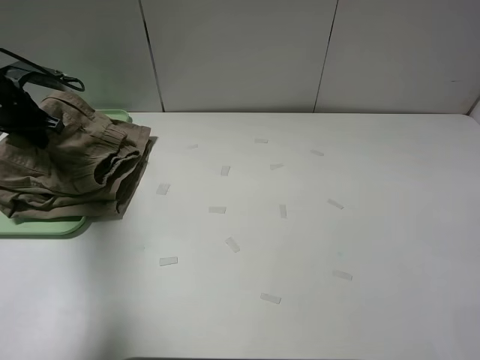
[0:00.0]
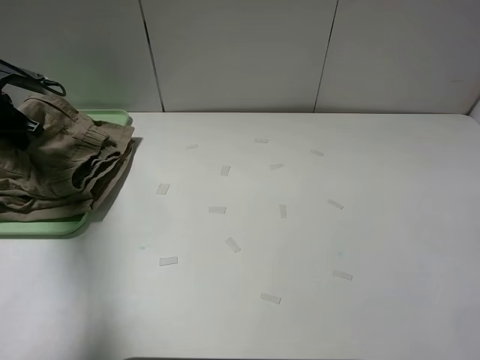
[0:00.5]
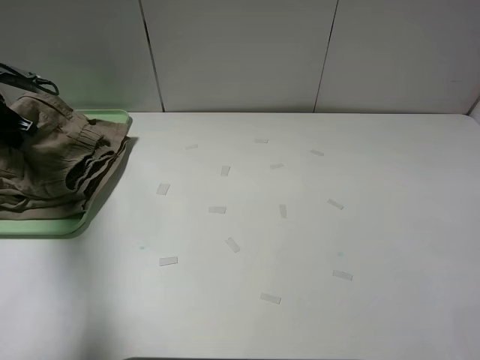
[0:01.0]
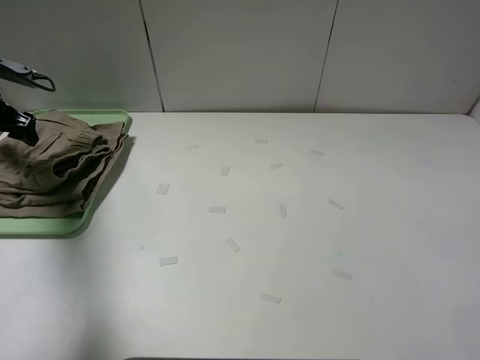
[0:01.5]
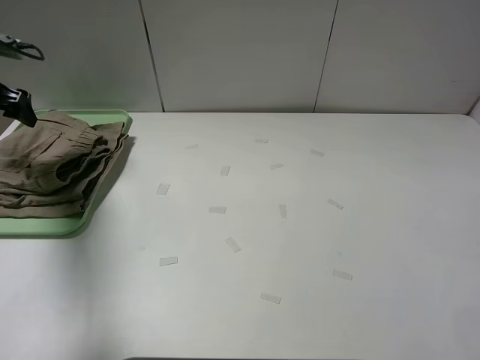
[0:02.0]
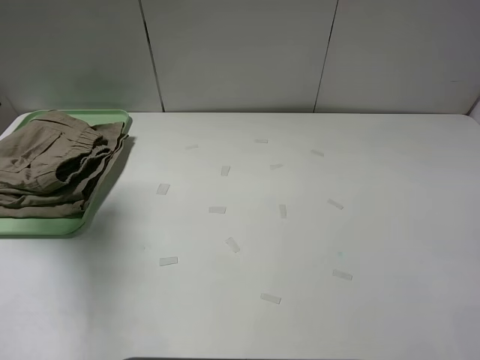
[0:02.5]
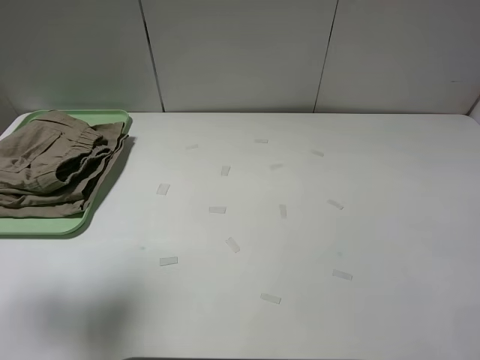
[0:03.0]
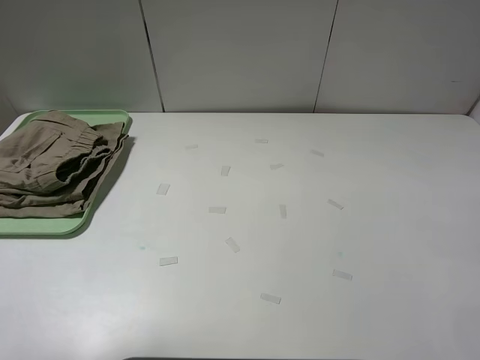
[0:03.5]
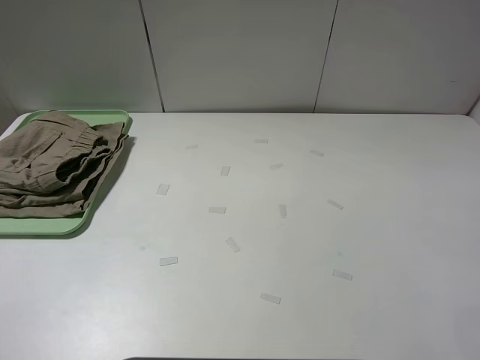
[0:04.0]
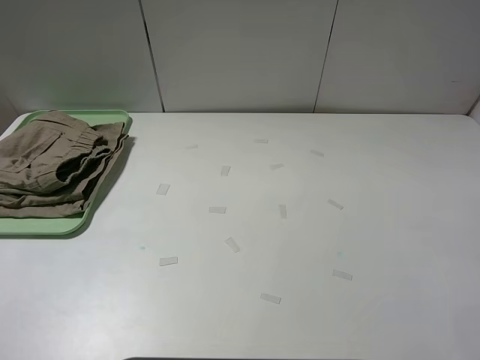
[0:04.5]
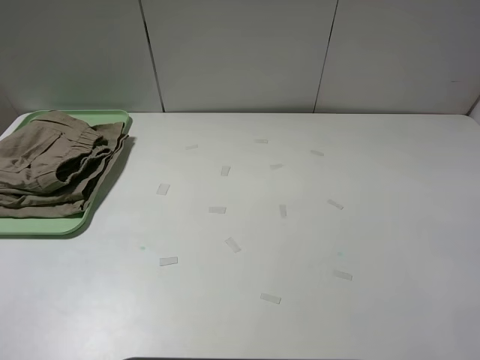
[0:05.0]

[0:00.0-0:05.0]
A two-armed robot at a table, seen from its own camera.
Task of the whole recording: fold the khaki jeans in half with two grippers, then fold them in half again, and use the left claw to place the folded fold khaki jeans on the tray.
Step, 0:00.0 to 0:02.0: Place the folded khaki trousers on the green tray with the left gripper.
0:00.0 to 0:02.5: The left gripper moves upward and backward, approximately 15 cm, and opens up.
0:02.5 to 0:05.0: The left gripper moves backward, some 35 cm.

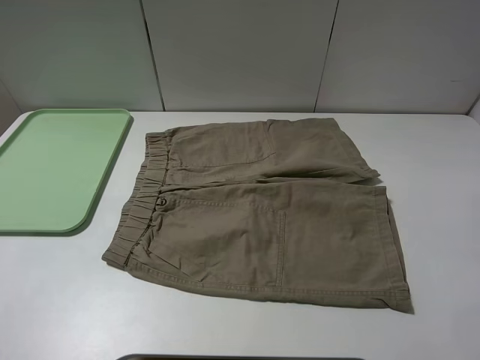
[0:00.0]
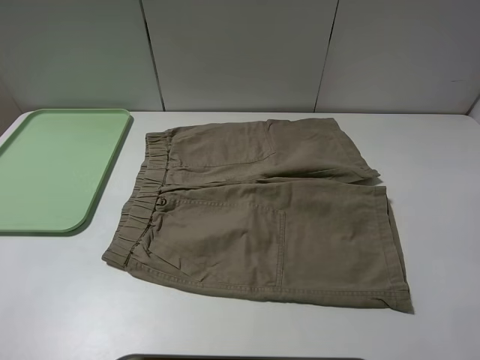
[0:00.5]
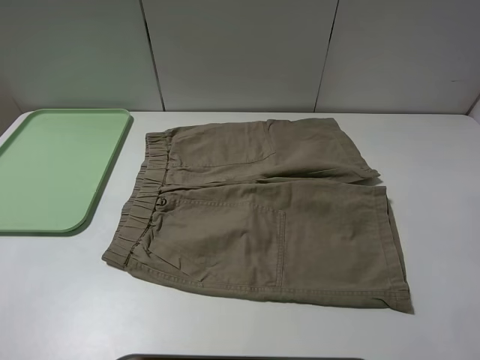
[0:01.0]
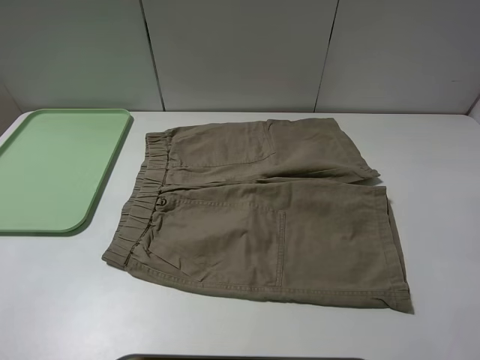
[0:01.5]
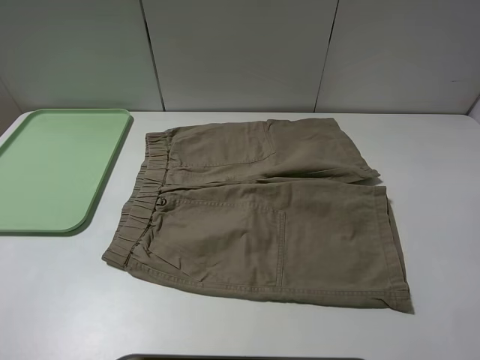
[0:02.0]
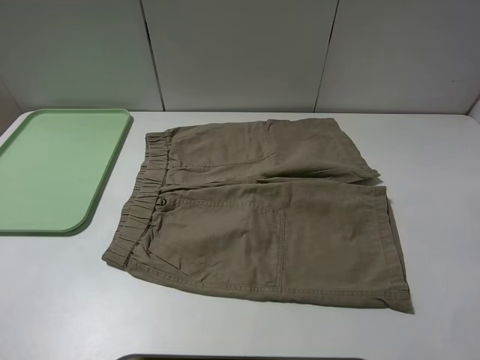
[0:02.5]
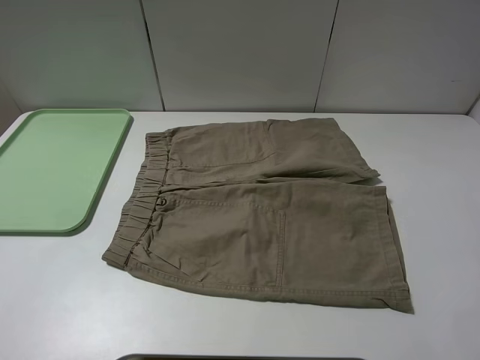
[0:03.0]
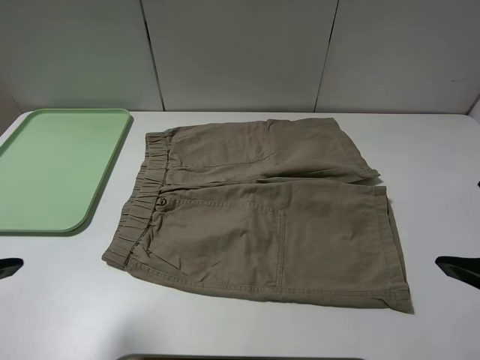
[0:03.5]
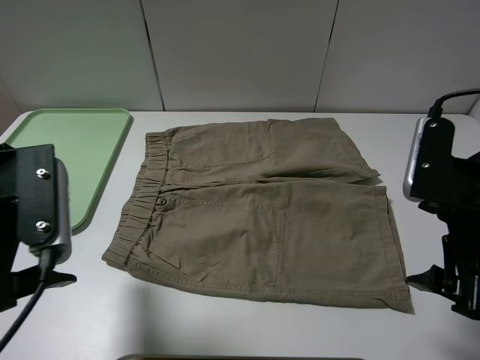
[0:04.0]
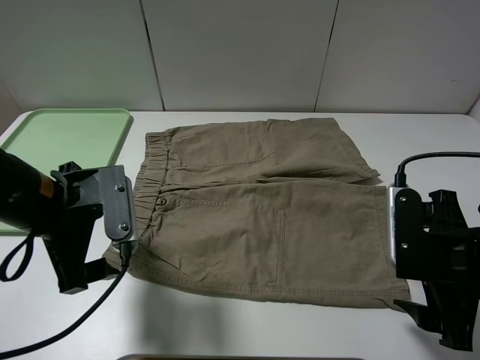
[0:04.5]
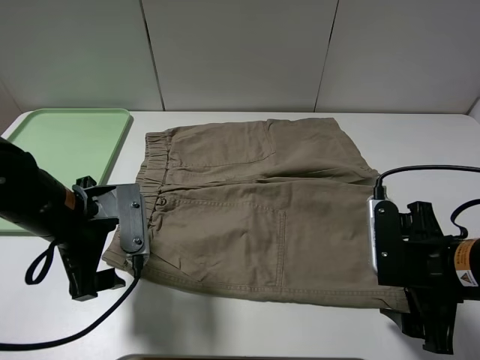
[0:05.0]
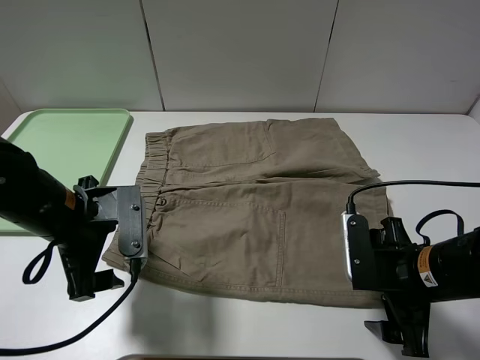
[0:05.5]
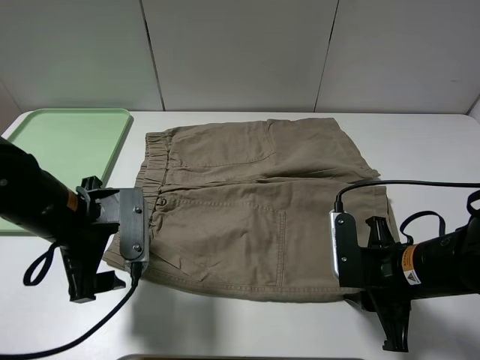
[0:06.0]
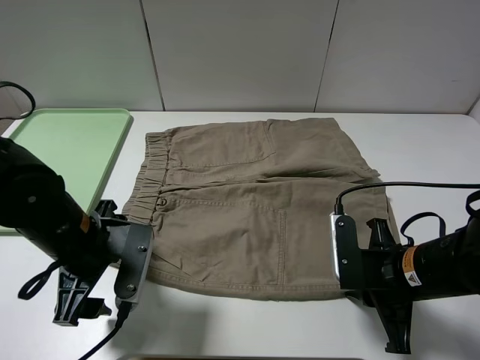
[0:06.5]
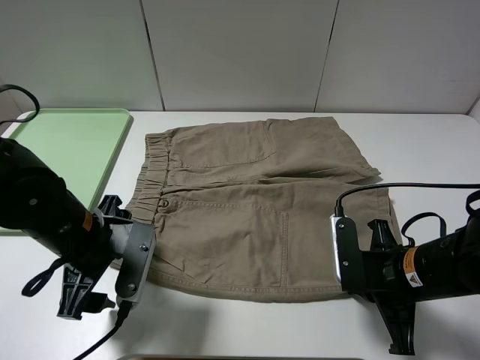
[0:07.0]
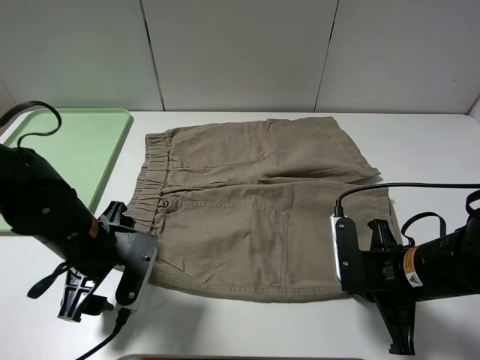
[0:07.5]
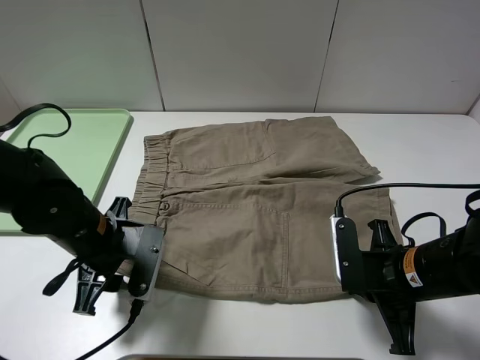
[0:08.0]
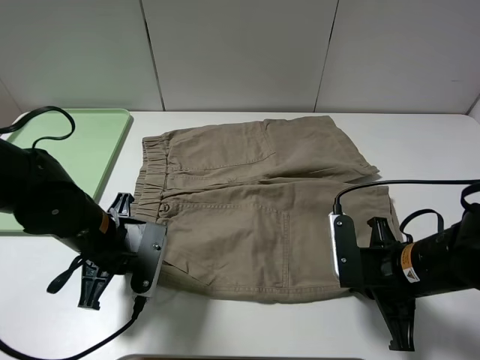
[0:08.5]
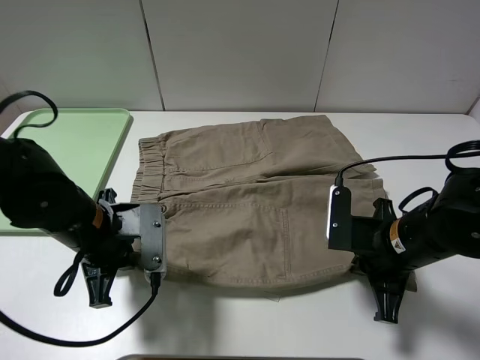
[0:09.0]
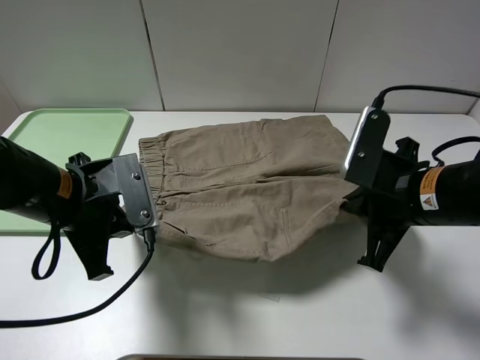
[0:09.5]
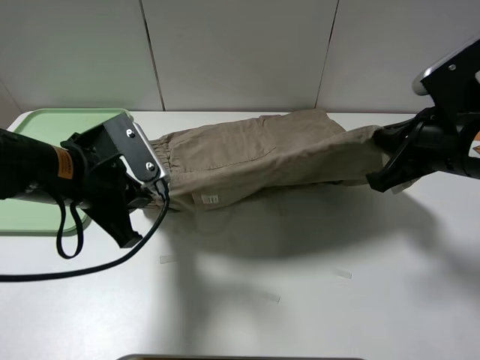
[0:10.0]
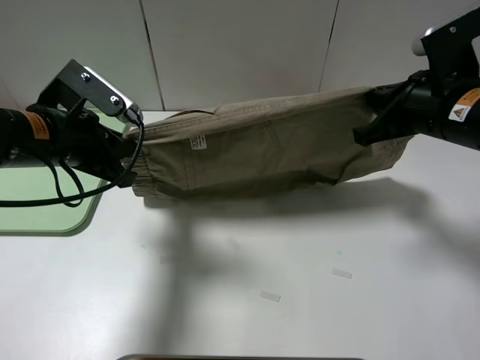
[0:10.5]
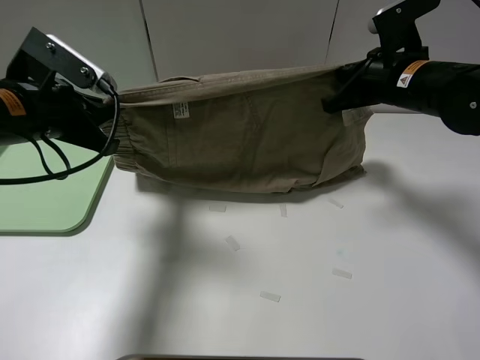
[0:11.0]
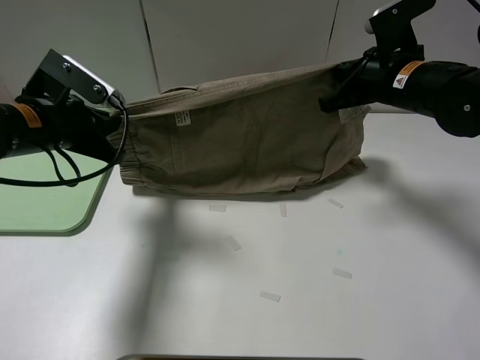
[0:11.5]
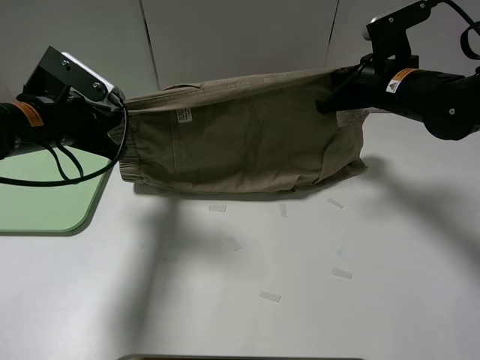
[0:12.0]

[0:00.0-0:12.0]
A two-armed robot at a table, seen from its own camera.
Task of the whole recording: fold the khaki jeans in half with two grippers, then fold them in half again, and use the left claw to place the folded fold khaki jeans on the tray.
Step, 0:00.0 to 0:06.5: Grasp the khaki trousers with the right gripper.
Step, 0:07.0 to 0:08.5: Grasp the khaki trousers with the left gripper.
0:02.0 to 0:04.0: The right gripper shifts approximately 15 cm forward, to the left and downward, while the left gripper shifts approximately 20 cm forward and to the right.
0:04.0 to 0:06.0: The two grippers go some 10 cm downward. The right gripper closes its fingers.
0:06.0 to 0:08.0: The right gripper closes its fingers. The left gripper closes its fingers.
0:08.0 to 0:10.0: The left gripper is displaced upward by some 10 cm, and closes up. Meanwhile the right gripper travels upward and forward by approximately 15 cm.
0:10.0 to 0:12.0: The right gripper heads forward, covering approximately 15 cm, while the left gripper shifts roughly 10 cm forward and to the left.

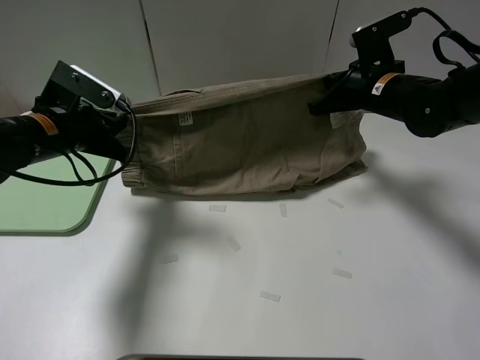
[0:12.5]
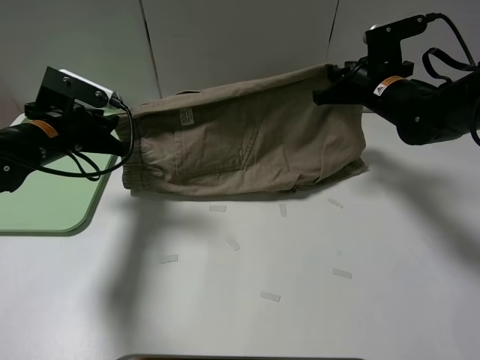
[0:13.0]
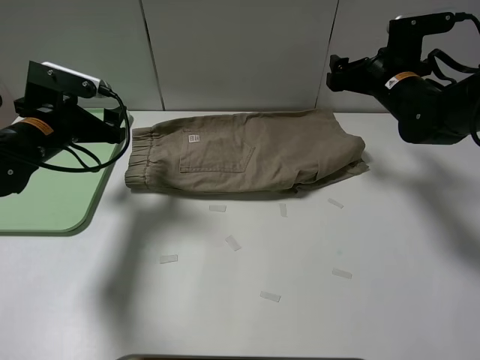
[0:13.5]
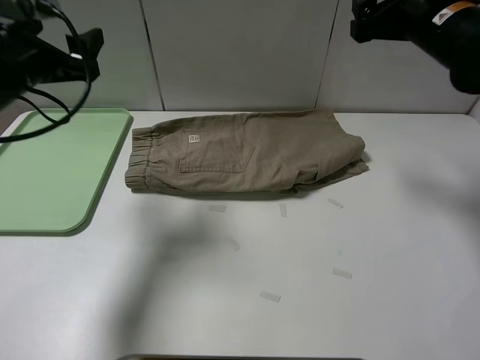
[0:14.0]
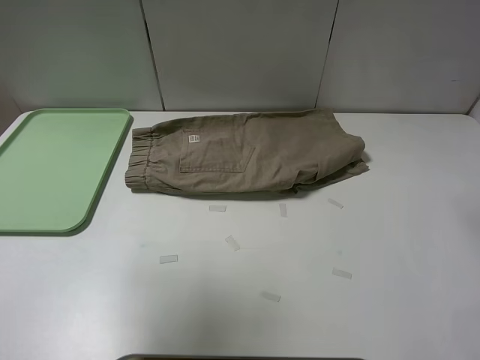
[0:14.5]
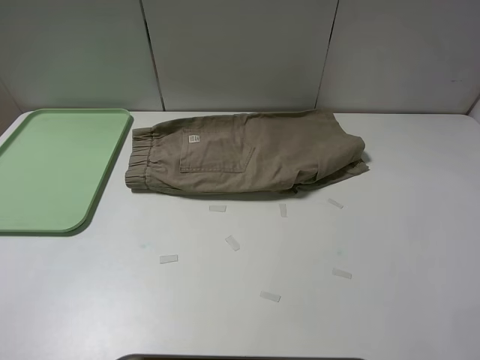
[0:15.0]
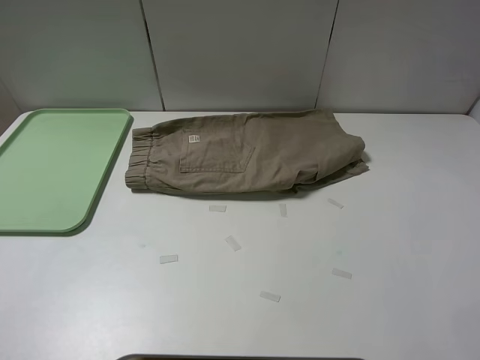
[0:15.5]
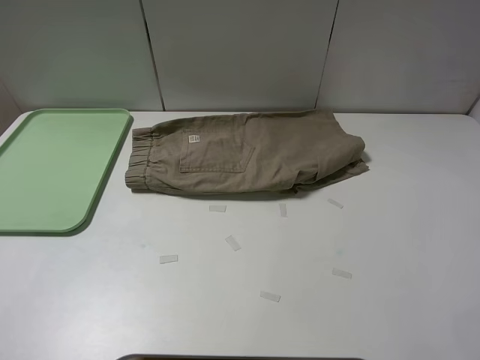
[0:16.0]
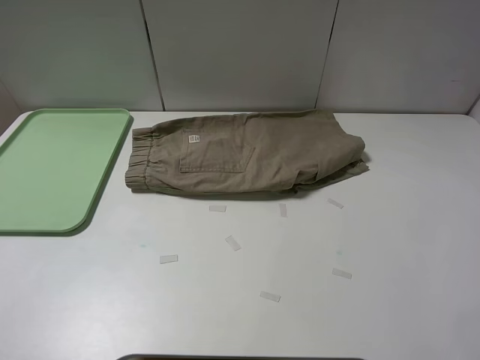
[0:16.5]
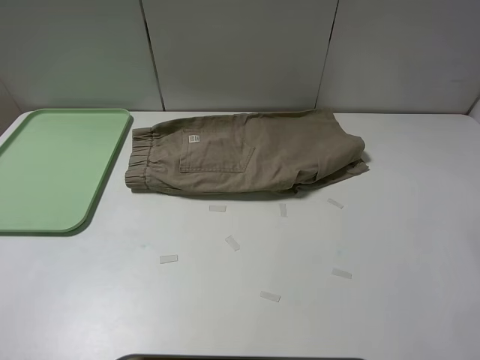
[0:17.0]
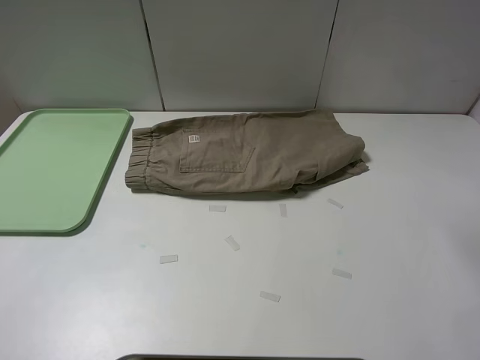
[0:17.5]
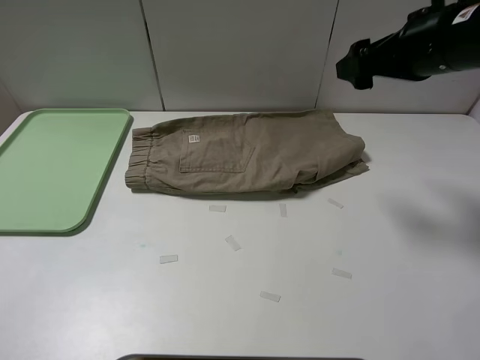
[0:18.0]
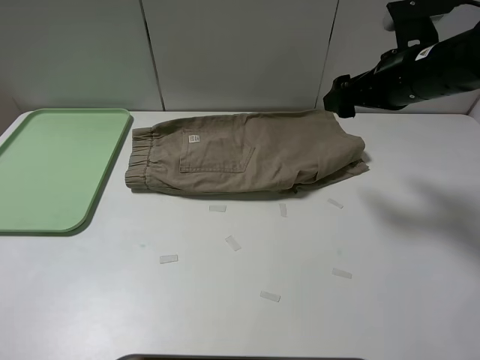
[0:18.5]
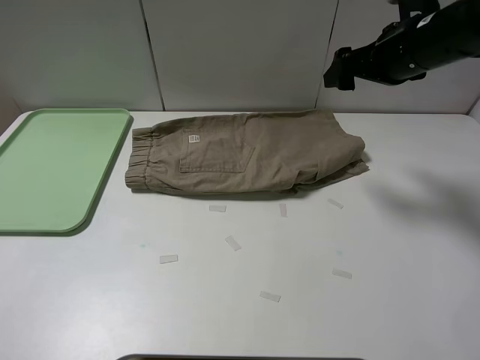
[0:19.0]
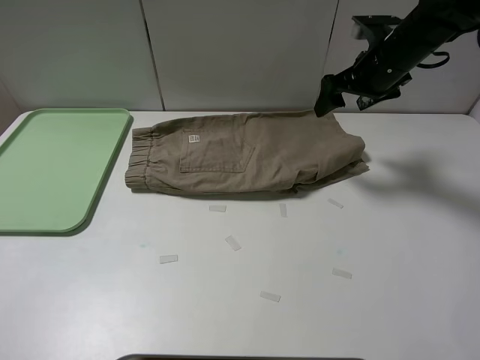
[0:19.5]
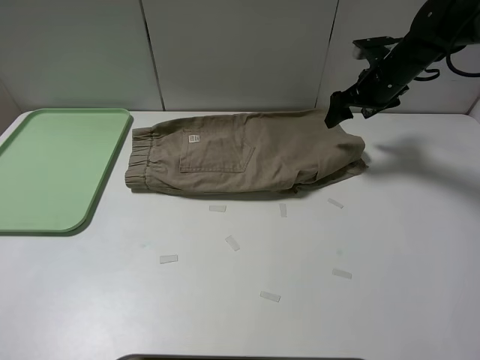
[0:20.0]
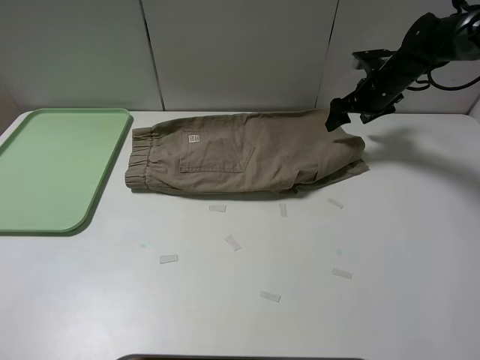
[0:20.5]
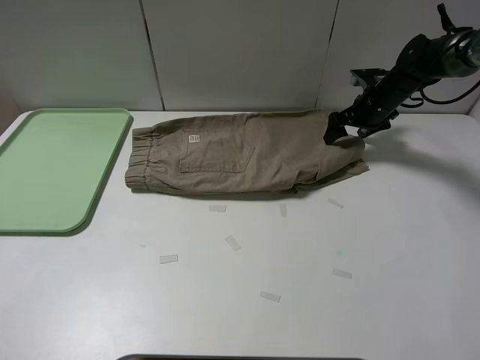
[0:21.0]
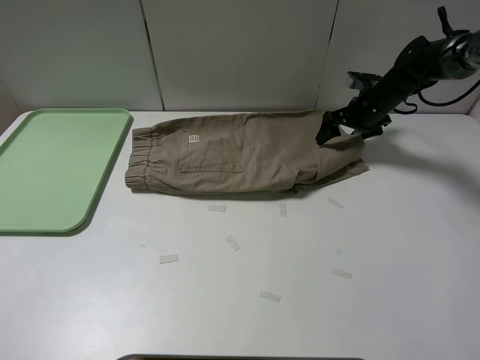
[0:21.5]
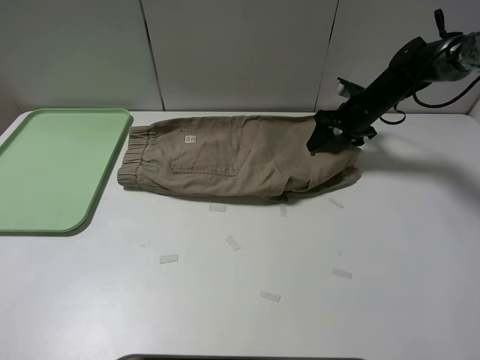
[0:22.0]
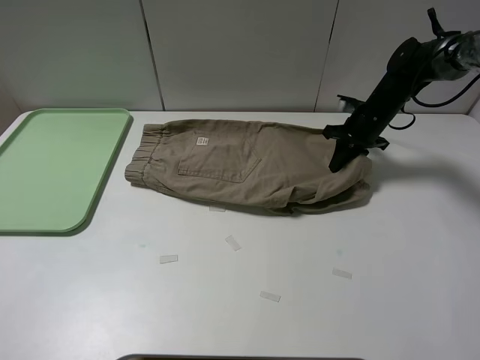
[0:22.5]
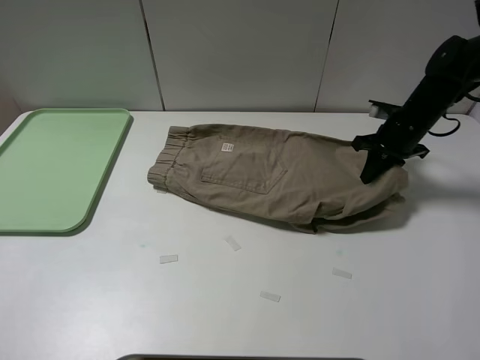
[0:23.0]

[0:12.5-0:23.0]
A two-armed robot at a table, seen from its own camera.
Task of the whole recording: fold the khaki jeans in half with two grippers, then fold them in half again, and use the left claw to place the folded fold khaki jeans on the tray.
Step, 0:13.5 to 0:22.0: Grasp the khaki trousers with the right gripper.
0:12.5 to 0:14.5: Both grippers move upward and backward, approximately 25 cm. The left gripper opens; the right gripper opens its fingers.
0:14.5 to 0:16.5: The right gripper shifts some 5 cm backward; the left gripper moves backward and downward, about 20 cm.
0:16.5 to 0:19.0: The right gripper shifts about 20 cm downward and forward.
0:19.0 to 0:21.0: The right gripper goes approximately 20 cm downward and forward.
0:21.0 to 0:23.0: The right gripper goes approximately 10 cm backward, and closes its fingers.
